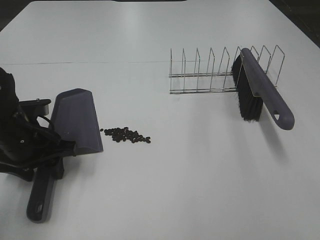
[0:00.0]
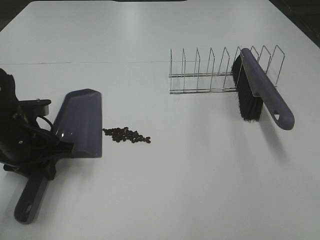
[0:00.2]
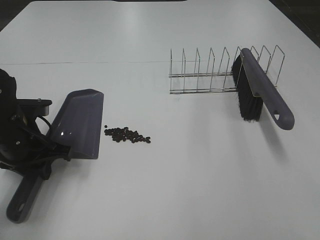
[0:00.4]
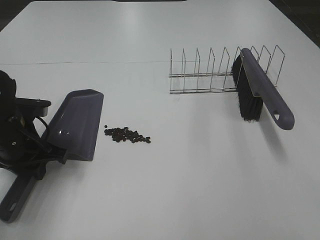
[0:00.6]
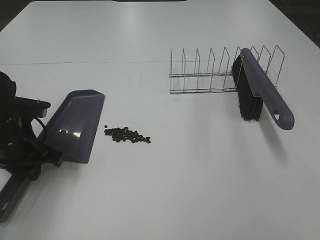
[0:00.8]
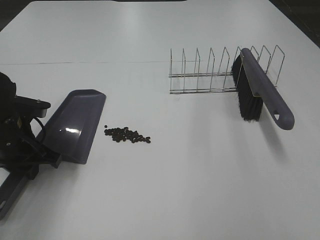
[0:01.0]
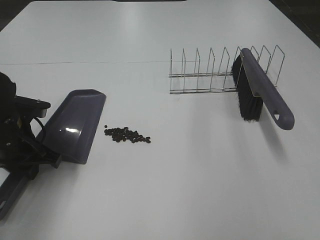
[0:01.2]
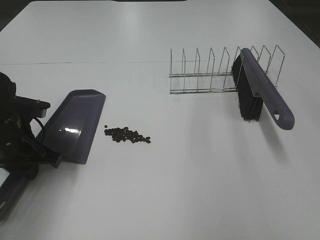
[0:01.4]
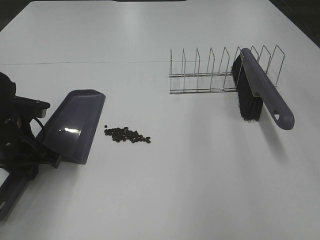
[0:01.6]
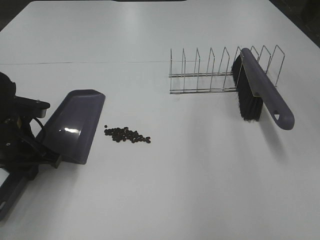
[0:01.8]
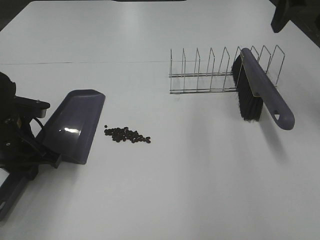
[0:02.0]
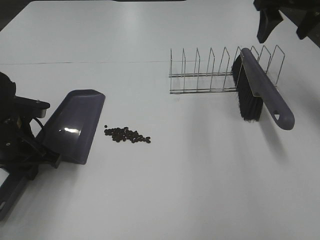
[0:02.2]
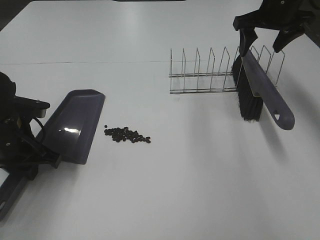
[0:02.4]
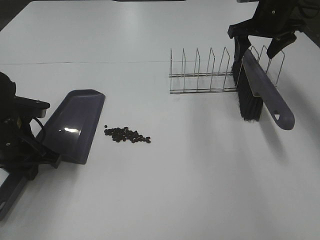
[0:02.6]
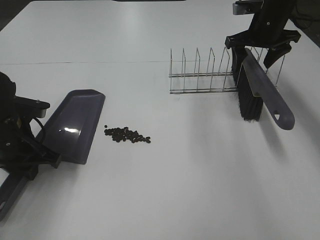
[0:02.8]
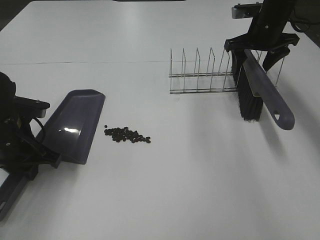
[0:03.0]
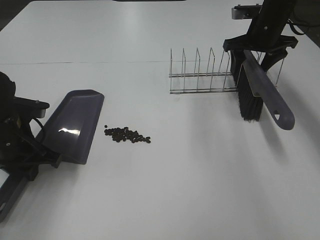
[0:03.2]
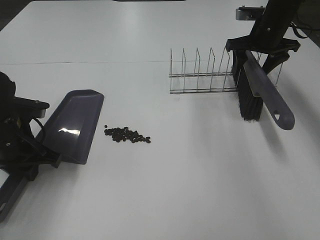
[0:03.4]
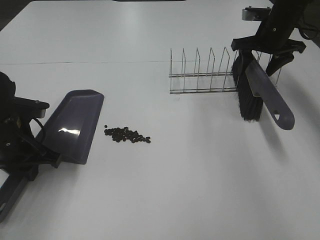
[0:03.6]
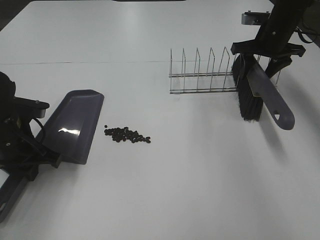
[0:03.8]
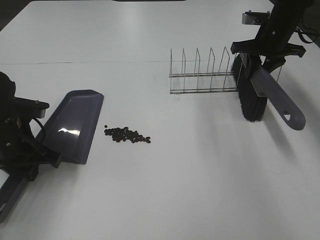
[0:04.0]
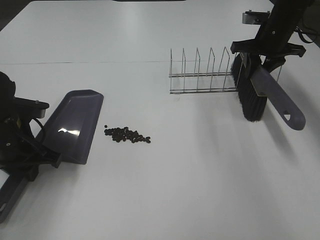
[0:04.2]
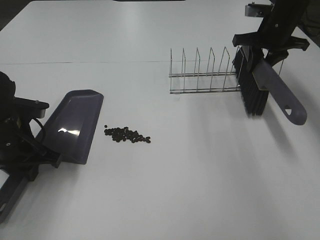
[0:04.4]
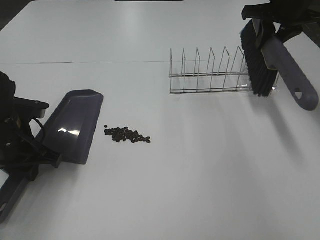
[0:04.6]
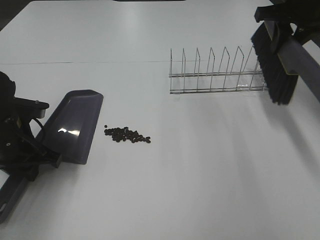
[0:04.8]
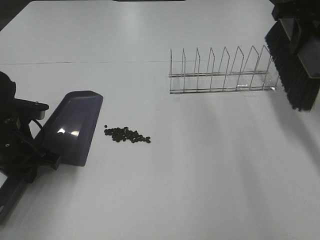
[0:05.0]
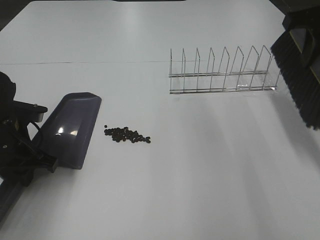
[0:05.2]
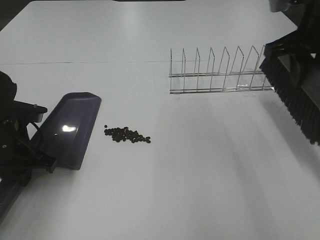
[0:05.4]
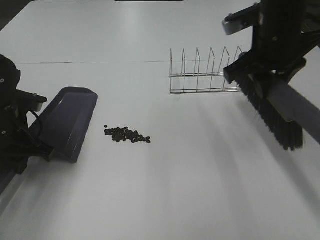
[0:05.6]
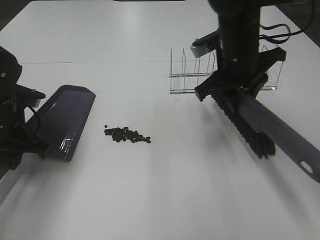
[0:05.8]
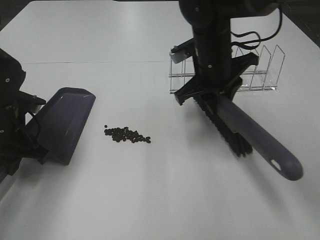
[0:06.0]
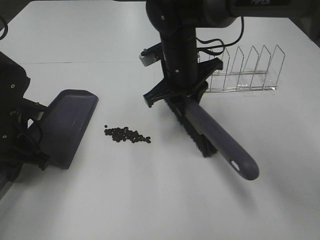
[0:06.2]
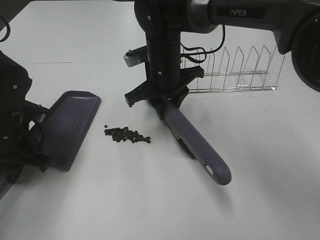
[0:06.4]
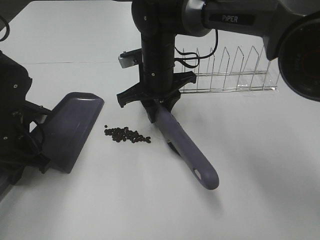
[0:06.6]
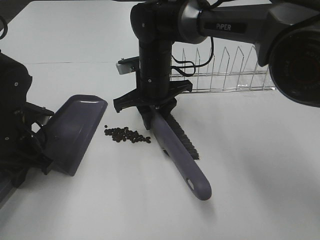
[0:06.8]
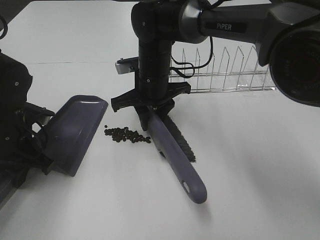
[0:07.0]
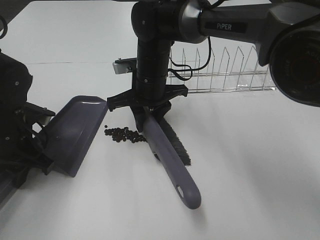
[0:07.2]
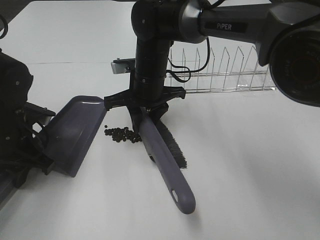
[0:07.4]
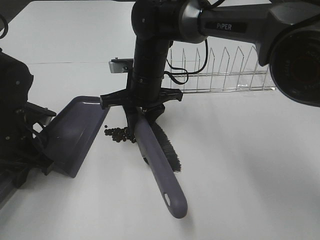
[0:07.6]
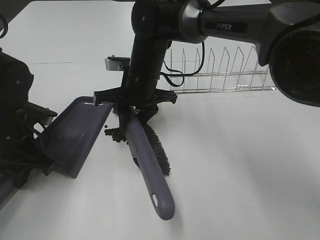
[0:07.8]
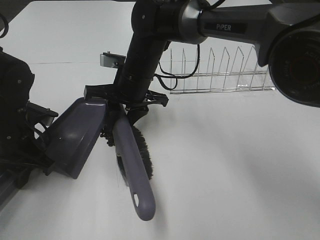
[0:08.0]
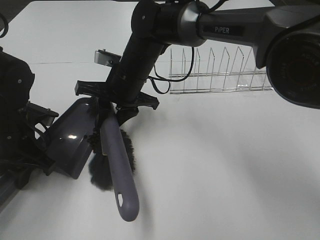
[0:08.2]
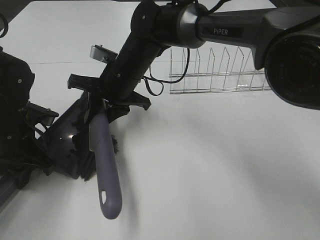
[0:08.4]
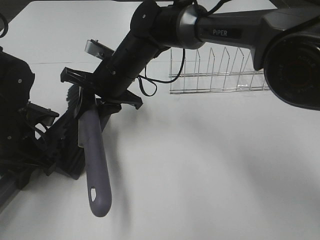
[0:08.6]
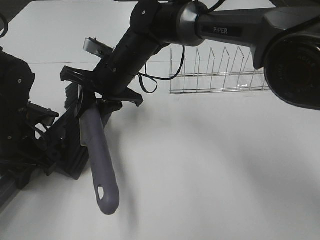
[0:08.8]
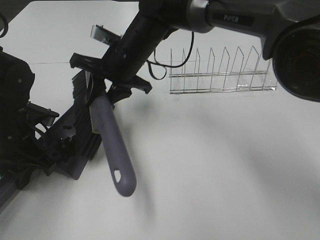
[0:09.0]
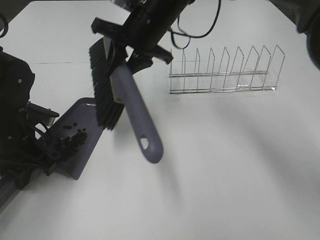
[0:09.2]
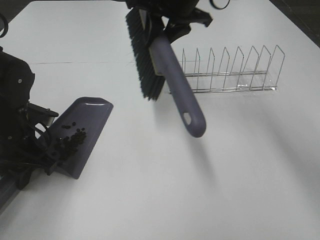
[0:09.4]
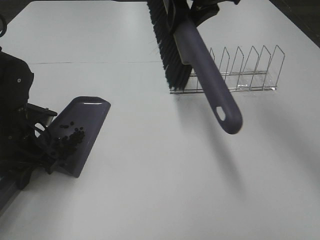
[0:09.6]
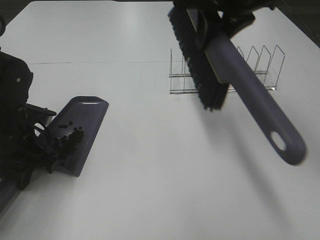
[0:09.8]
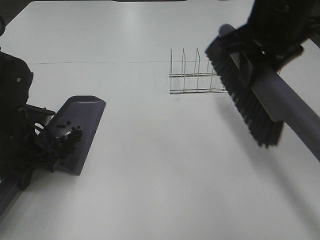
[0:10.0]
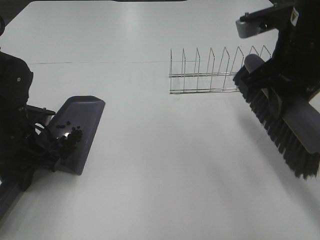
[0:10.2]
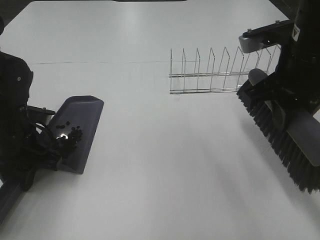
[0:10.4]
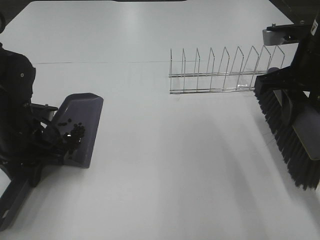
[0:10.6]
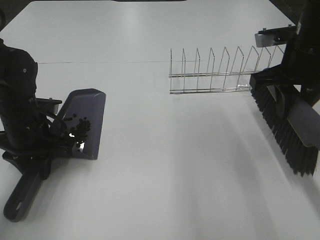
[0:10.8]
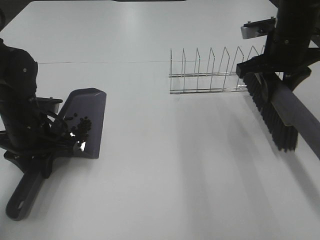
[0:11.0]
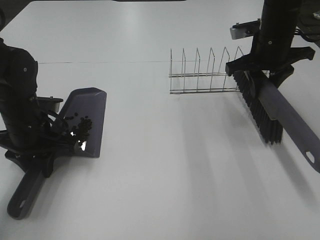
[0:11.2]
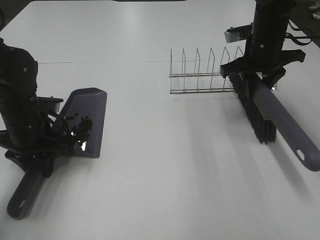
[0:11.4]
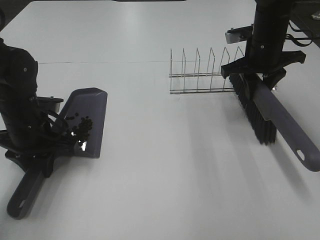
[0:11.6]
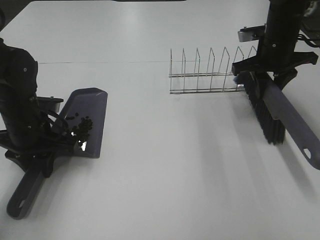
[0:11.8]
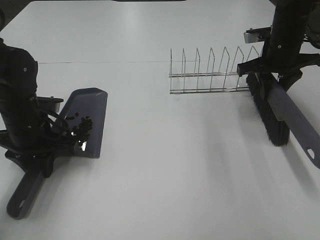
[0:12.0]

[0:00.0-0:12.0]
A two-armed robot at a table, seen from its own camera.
Task of the whole recording: Sweep Coffee Bean.
Step, 0:01.0 to 0:04.2: Right hand:grab the broom.
Step, 0:04.4 to 0:09.0: Right hand:sweep the coffee beans into the dustpan.
0:00.0 to 0:01.6: The left gripper closes its fingers.
0:01.6 to 0:03.0: The right gripper moves forward and downward, approximately 35 cm.
0:03.0 to 0:04.4: The right gripper closes its fingers.
0:04.4 to 0:06.0: The right gripper is displaced to the left and backward by some 20 cm.
0:06.0 to 0:07.6: The right gripper goes roughly 10 cm to the left.
0:07.6 to 0:09.0: The right gripper shifts by roughly 5 cm.
0:09.0 to 0:10.4: The right gripper is displaced to the right and backward by about 25 cm.
0:10.4 to 0:12.0: The right gripper moves forward and downward, some 20 cm.

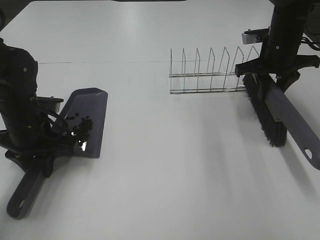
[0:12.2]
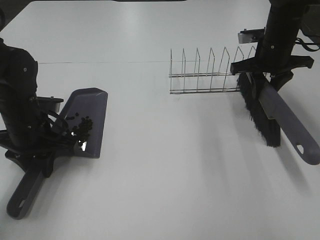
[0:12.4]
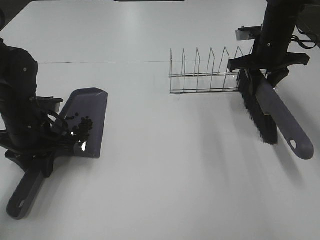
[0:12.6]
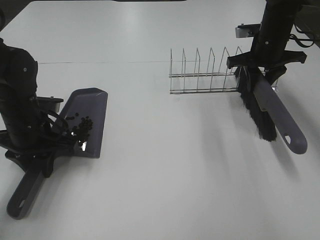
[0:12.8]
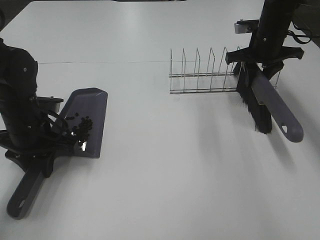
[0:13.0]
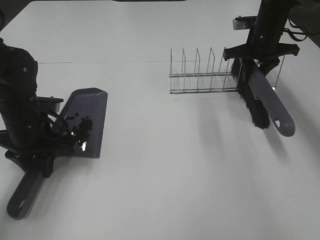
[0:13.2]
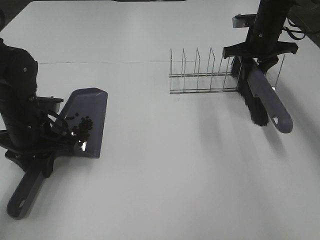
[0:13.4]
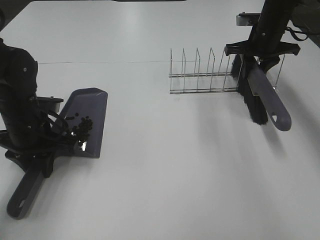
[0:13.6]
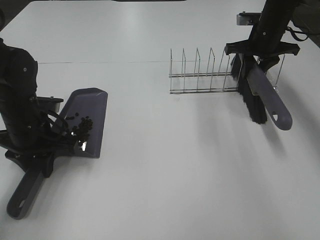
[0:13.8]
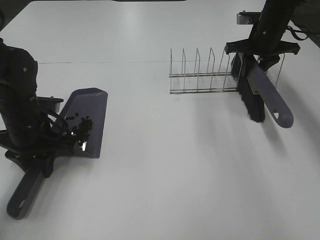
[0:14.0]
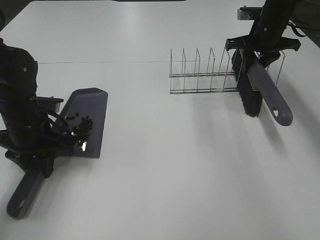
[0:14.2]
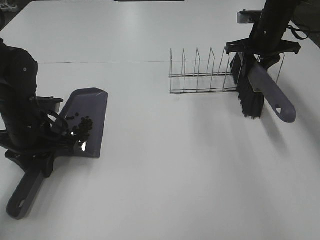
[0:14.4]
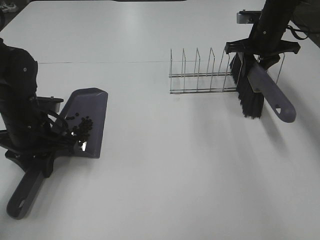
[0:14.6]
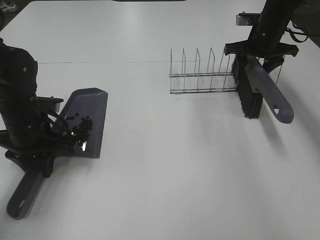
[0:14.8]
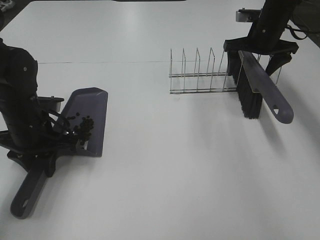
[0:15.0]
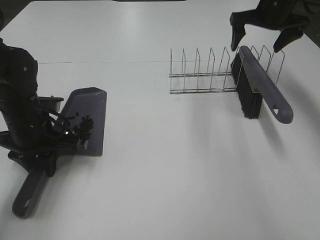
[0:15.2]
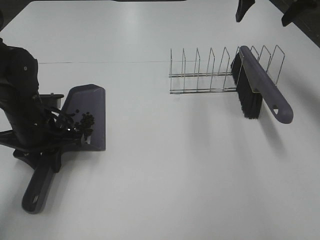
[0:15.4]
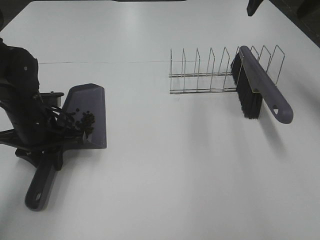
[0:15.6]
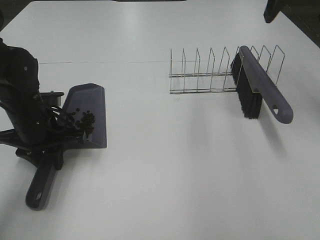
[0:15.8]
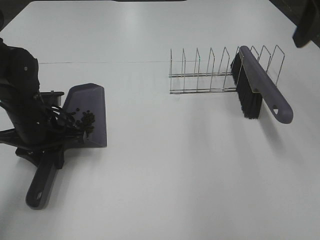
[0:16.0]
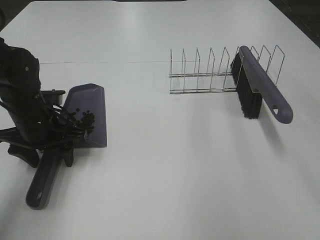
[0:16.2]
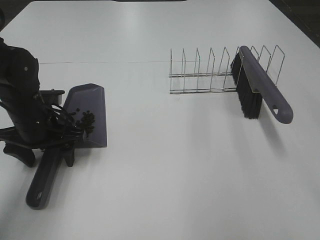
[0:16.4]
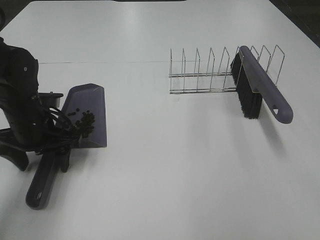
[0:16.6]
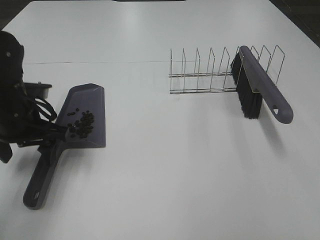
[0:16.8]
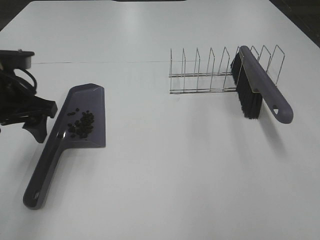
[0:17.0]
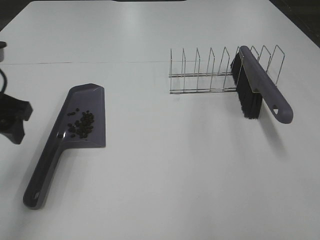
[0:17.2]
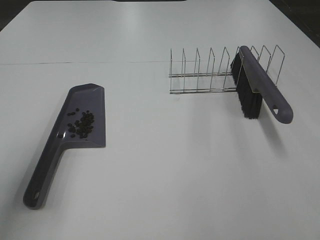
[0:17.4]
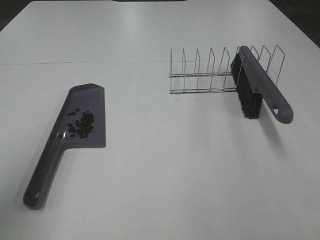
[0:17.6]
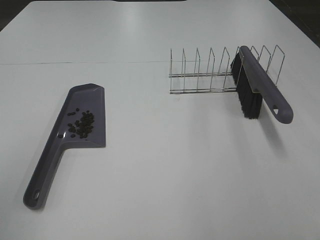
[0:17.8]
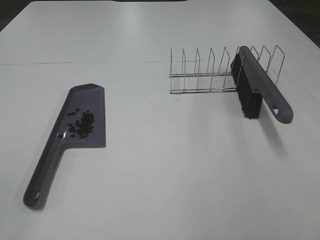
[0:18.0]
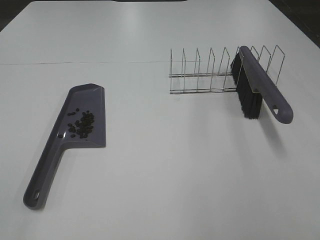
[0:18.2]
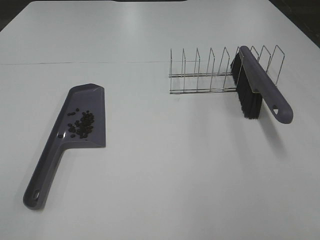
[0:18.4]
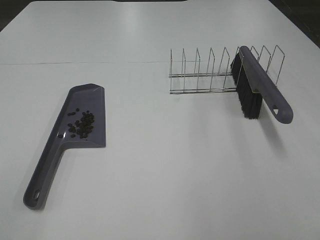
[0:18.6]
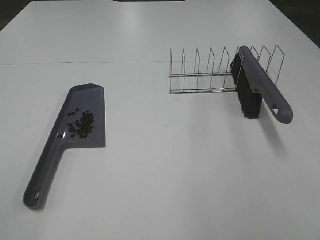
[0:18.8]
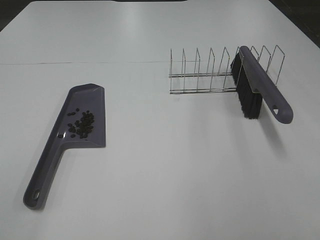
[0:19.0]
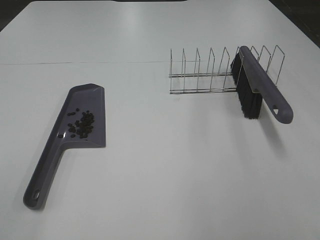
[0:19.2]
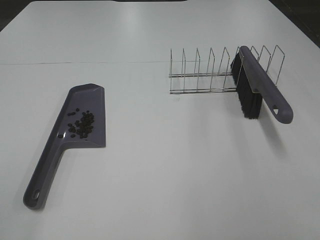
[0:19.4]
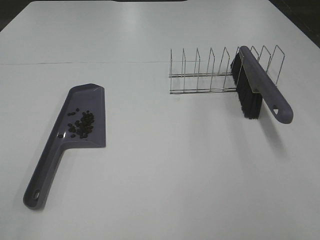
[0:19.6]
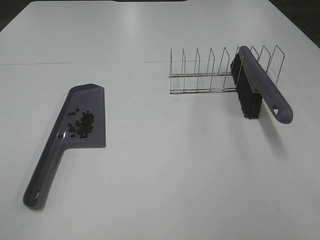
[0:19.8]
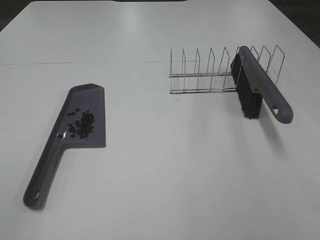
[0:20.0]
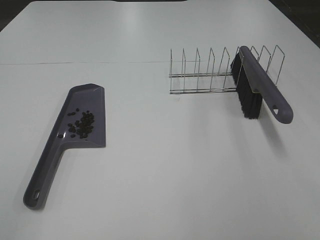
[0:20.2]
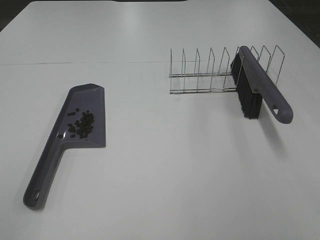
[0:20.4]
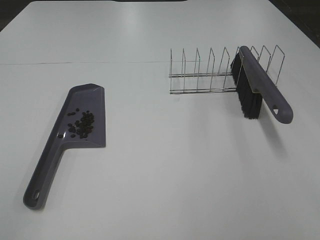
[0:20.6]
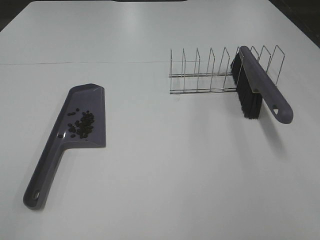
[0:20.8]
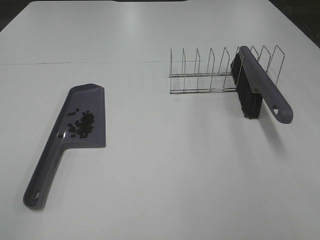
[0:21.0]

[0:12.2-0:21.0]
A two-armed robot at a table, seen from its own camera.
Task of the whole recording: Sweep Coffee Bean.
Step, 0:12.2 to 0:15.0: Right hand:place the broom on the rack.
0:12.2 to 0:13.6: The right gripper is displaced forward by about 5 cm.
0:13.6 to 0:15.2: The right gripper shifts some 10 cm upward, and opens its fingers.
0:15.2 to 0:16.6: The left gripper opens up. The right gripper shifts about 40 cm backward.
0:16.6 to 0:18.0: The left gripper goes some 40 cm backward and upward.

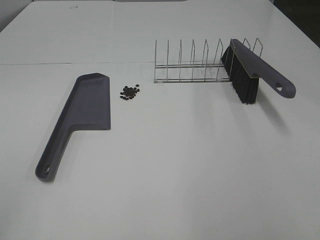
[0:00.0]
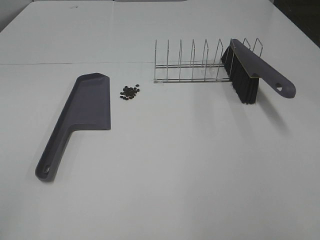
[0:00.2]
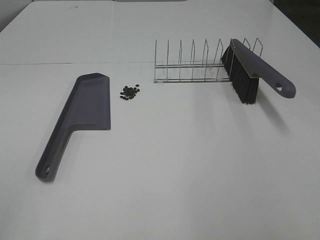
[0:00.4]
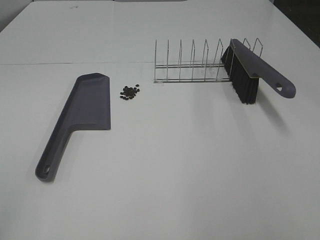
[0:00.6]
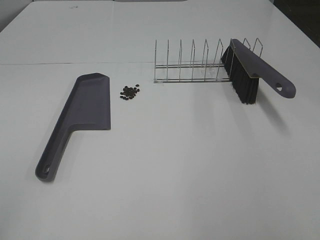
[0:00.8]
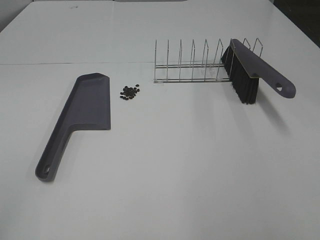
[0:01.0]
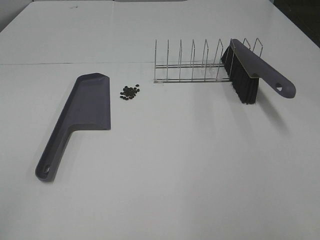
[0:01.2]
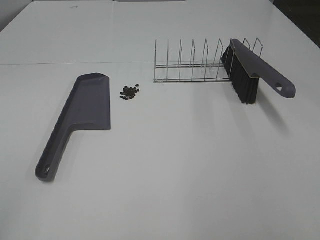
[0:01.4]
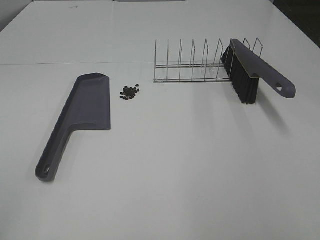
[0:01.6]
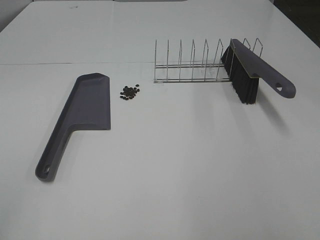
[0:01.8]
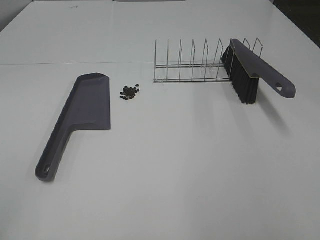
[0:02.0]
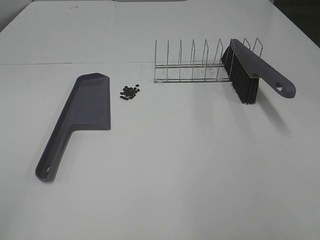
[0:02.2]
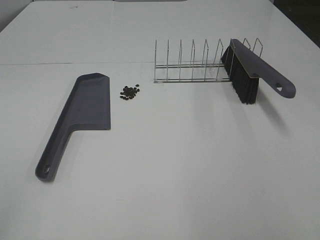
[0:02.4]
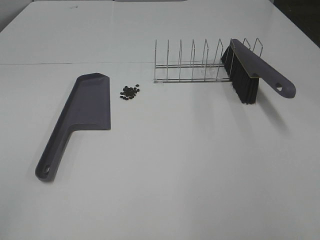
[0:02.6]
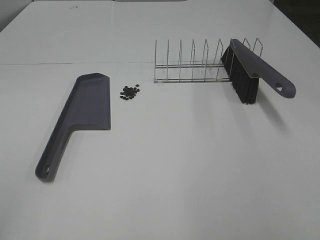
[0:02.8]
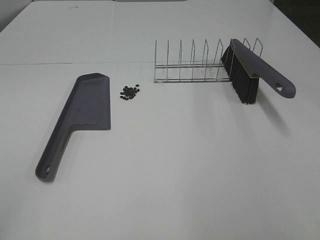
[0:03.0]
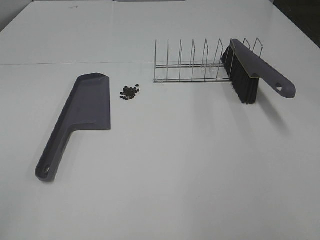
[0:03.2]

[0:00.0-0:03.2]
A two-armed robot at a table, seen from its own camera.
Task of the whole recording: Sweep Coffee Bean.
0:00.0 to 0:03.2: Both grippers stay put.
